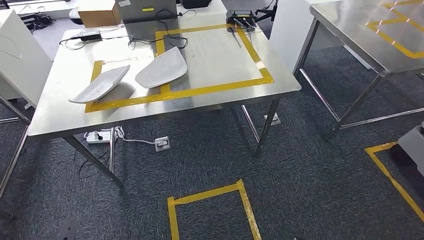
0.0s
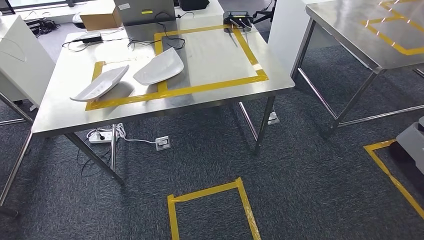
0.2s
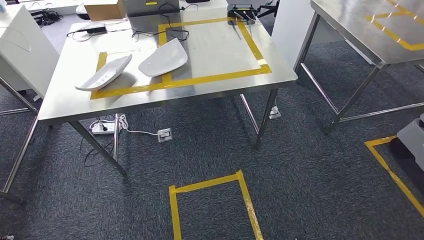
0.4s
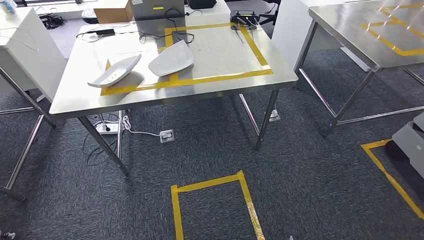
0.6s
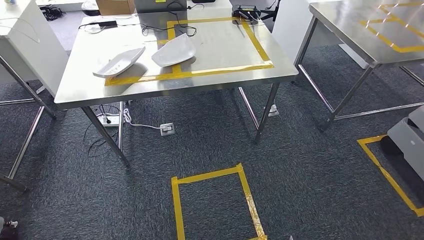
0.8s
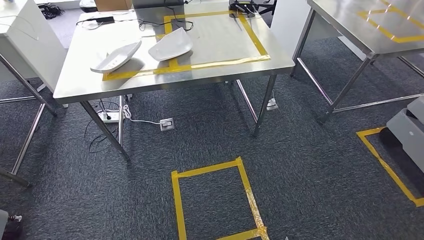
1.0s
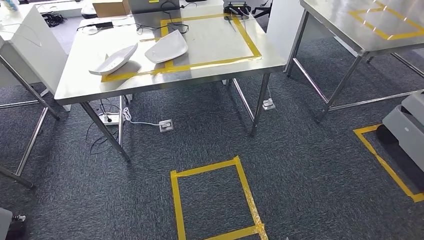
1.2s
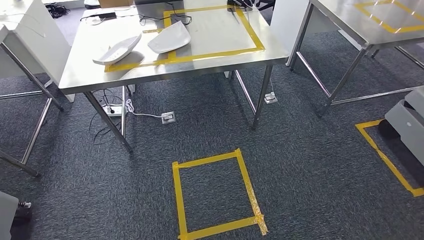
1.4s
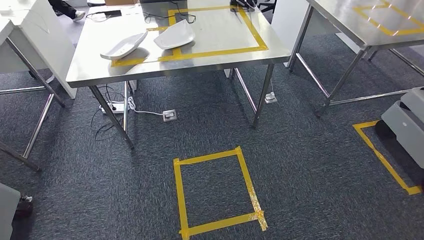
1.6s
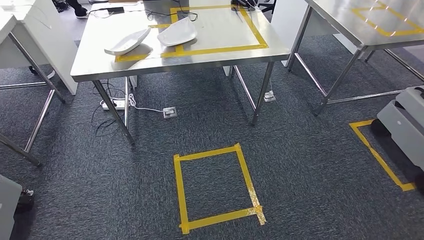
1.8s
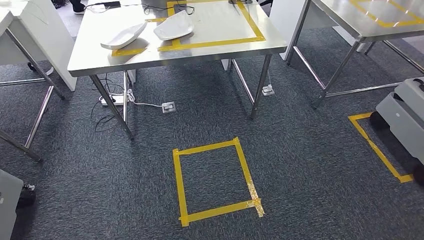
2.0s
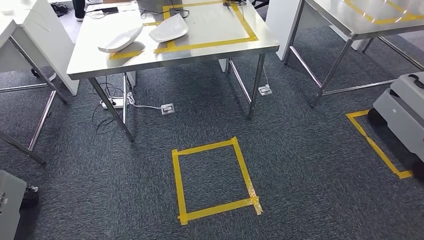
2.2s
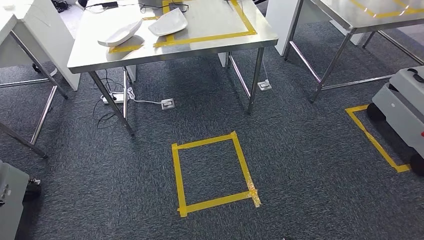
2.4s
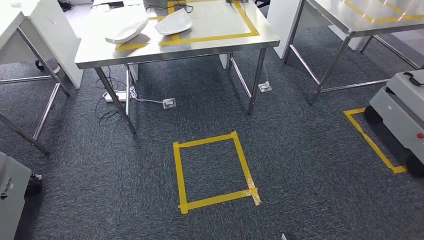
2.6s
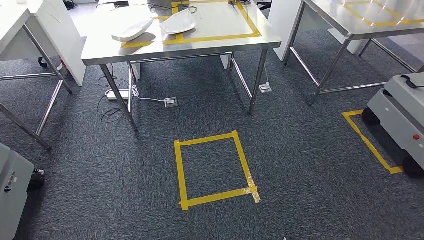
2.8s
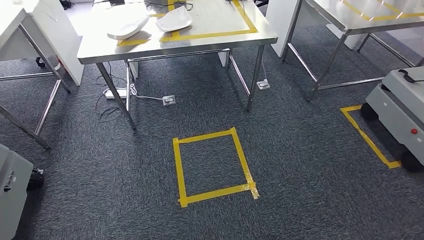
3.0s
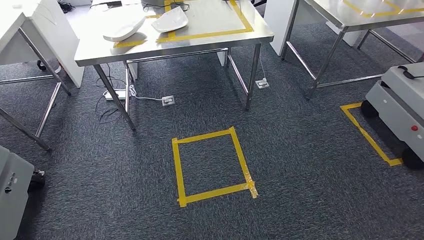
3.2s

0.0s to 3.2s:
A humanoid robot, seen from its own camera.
Step, 0.0s to 3.2s: Return to the initial position at the workbench.
